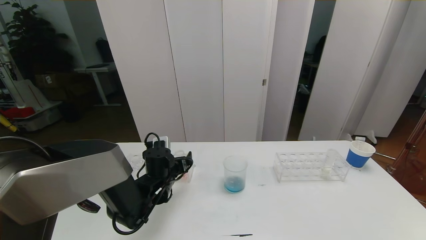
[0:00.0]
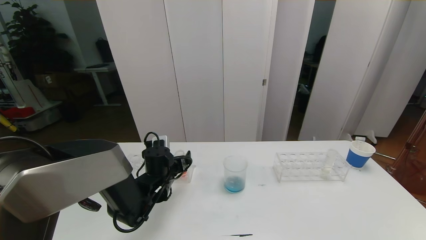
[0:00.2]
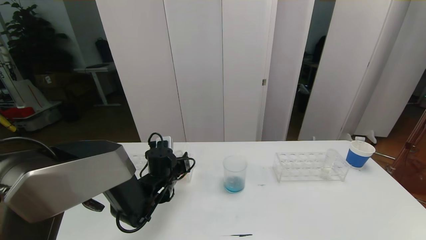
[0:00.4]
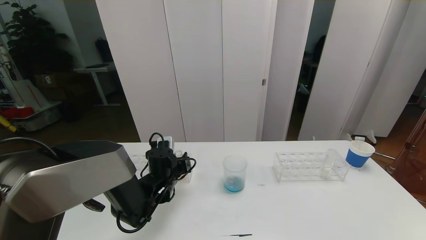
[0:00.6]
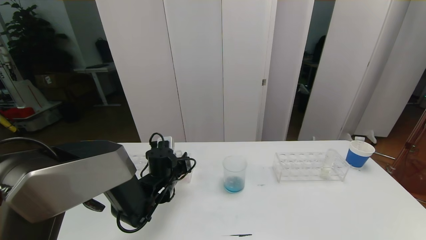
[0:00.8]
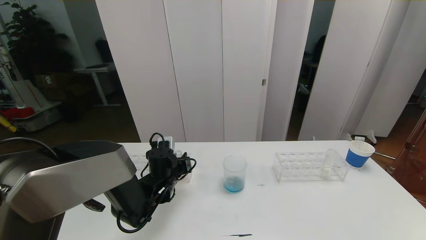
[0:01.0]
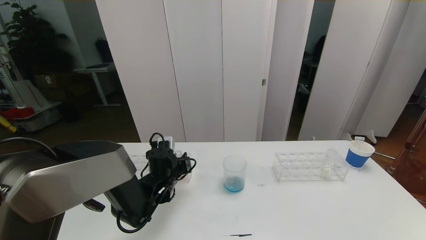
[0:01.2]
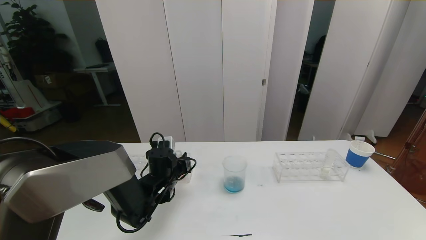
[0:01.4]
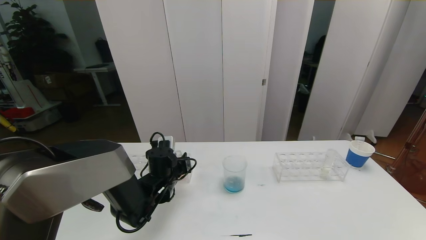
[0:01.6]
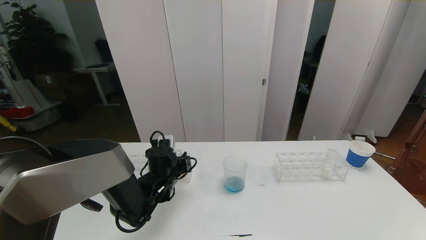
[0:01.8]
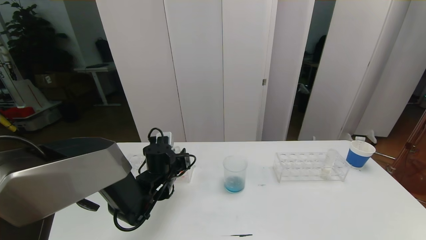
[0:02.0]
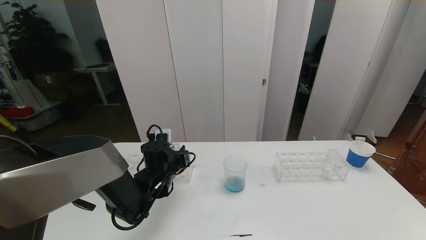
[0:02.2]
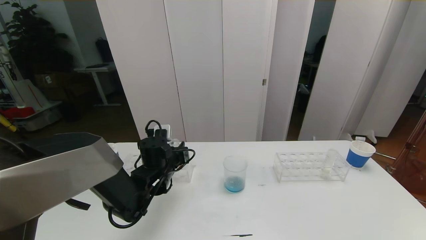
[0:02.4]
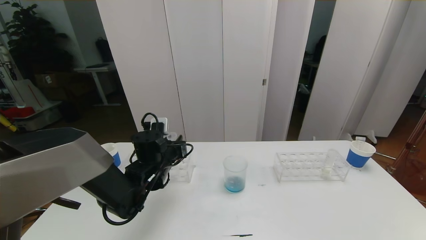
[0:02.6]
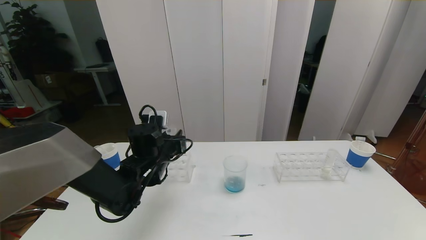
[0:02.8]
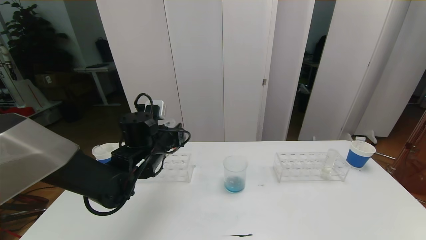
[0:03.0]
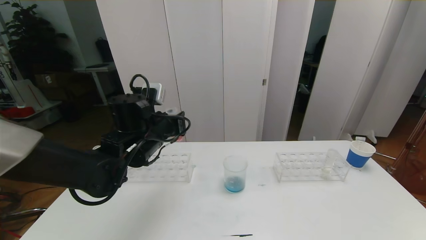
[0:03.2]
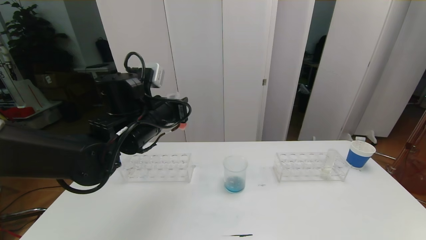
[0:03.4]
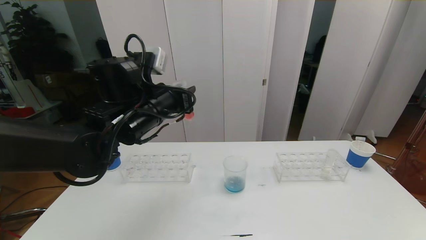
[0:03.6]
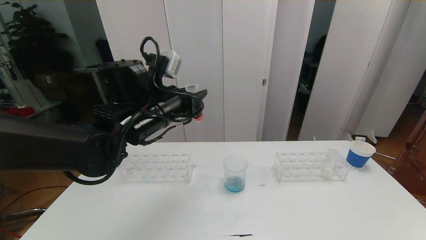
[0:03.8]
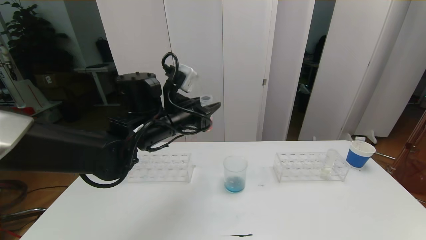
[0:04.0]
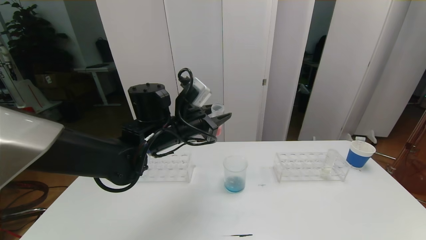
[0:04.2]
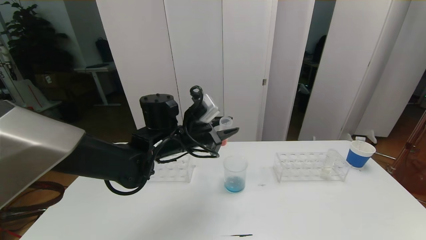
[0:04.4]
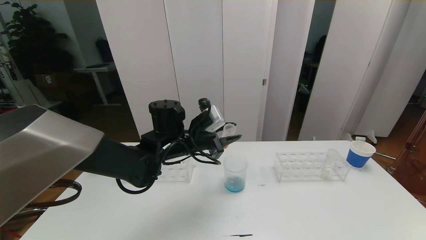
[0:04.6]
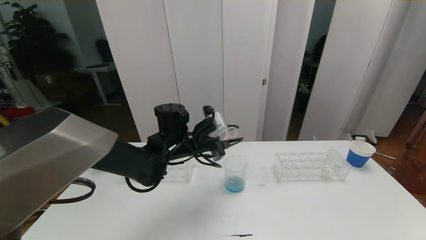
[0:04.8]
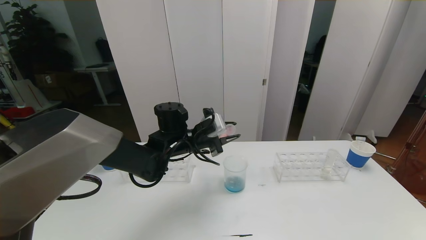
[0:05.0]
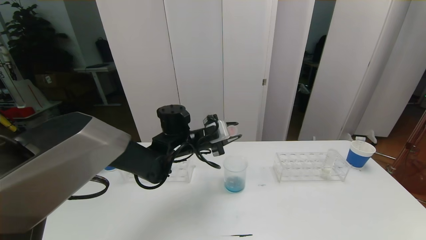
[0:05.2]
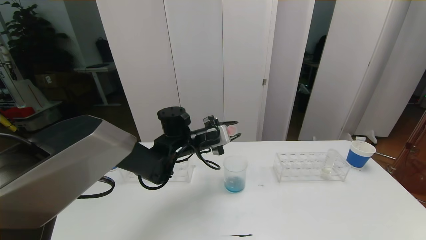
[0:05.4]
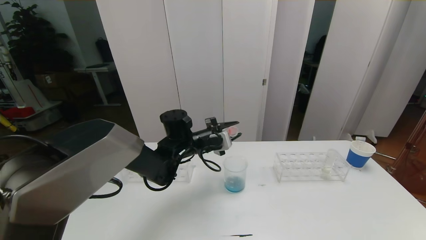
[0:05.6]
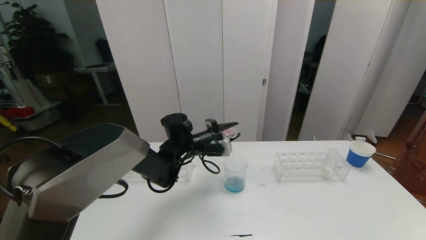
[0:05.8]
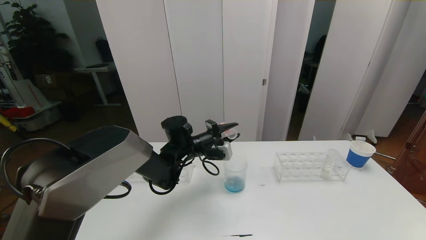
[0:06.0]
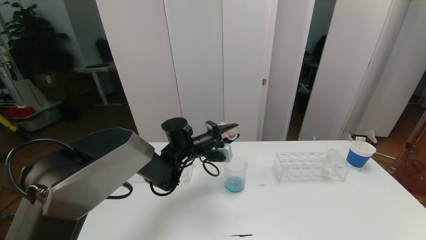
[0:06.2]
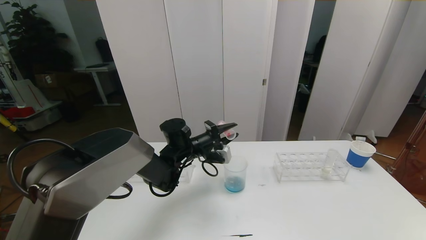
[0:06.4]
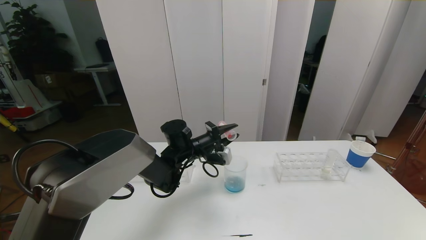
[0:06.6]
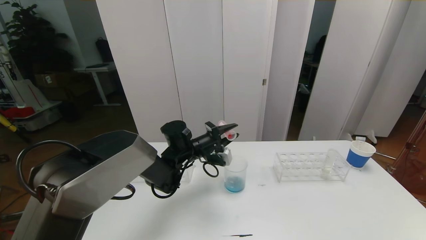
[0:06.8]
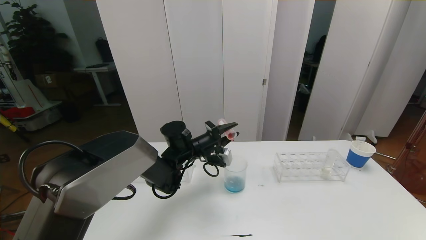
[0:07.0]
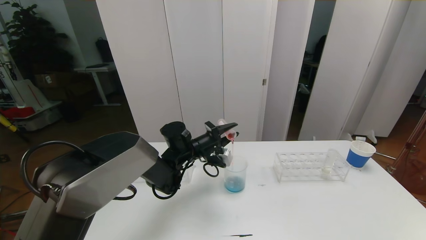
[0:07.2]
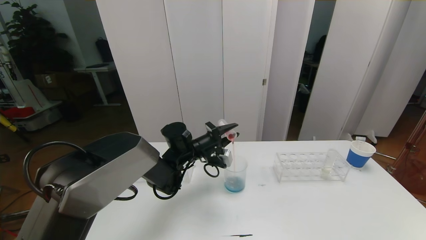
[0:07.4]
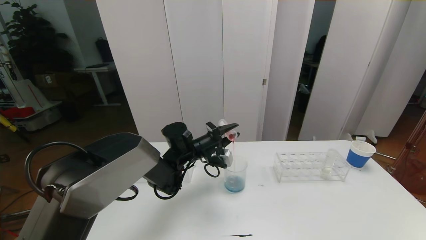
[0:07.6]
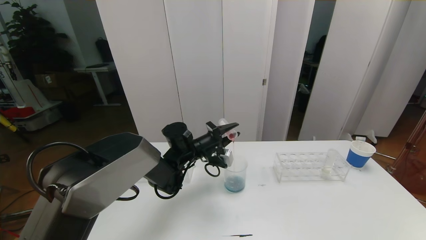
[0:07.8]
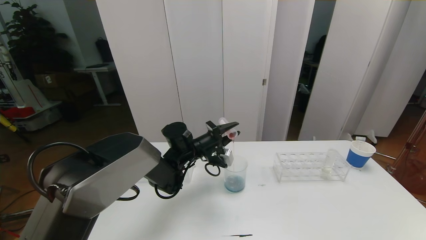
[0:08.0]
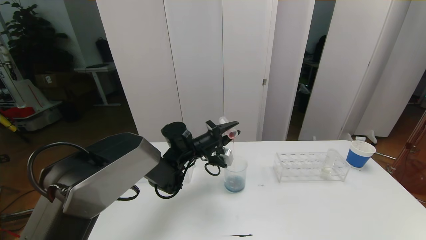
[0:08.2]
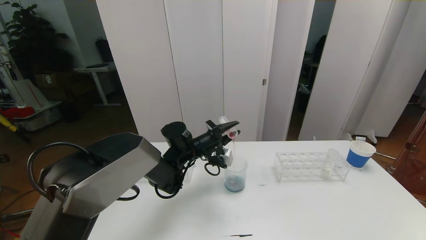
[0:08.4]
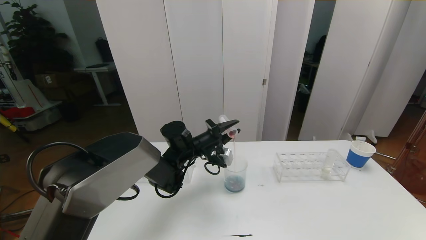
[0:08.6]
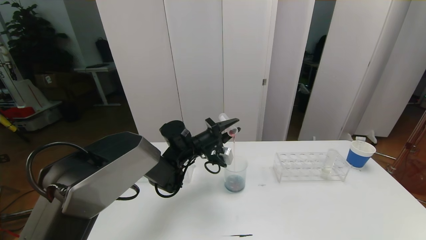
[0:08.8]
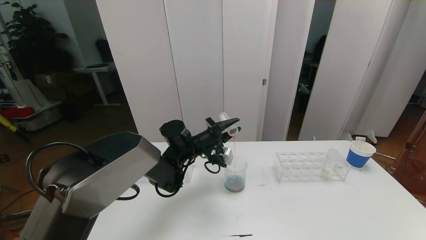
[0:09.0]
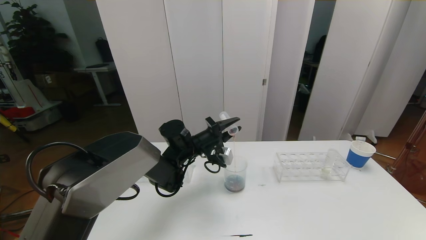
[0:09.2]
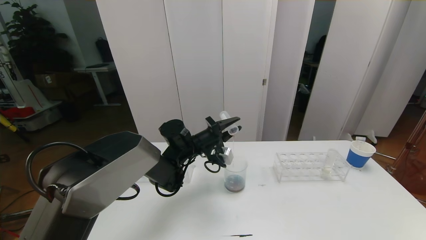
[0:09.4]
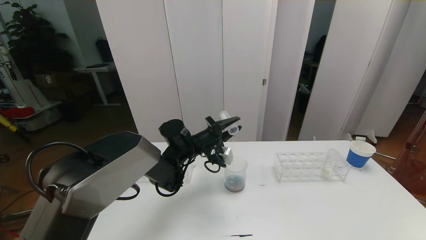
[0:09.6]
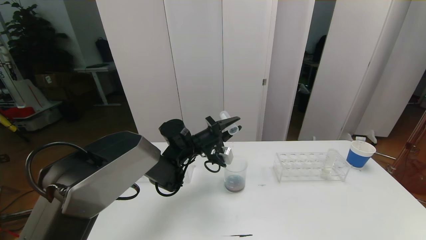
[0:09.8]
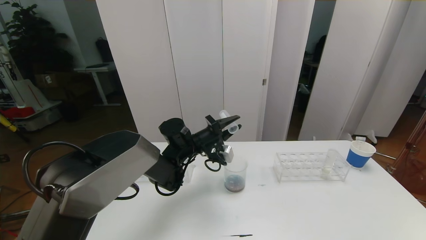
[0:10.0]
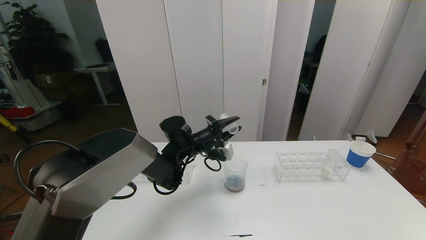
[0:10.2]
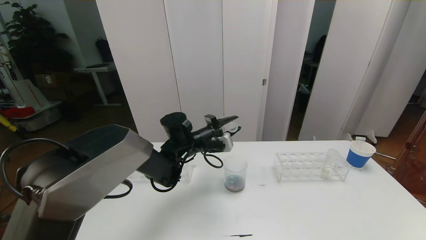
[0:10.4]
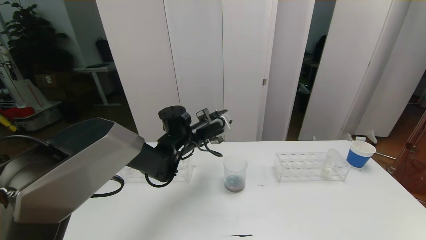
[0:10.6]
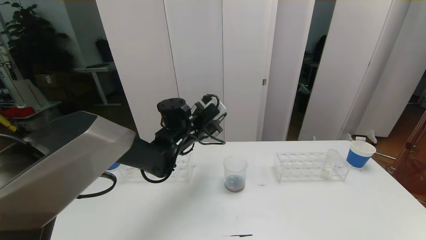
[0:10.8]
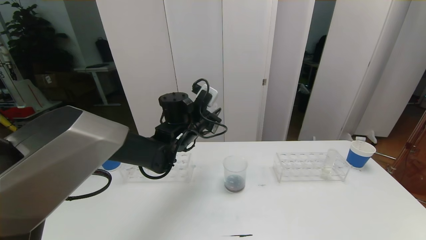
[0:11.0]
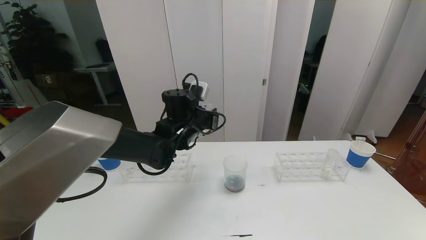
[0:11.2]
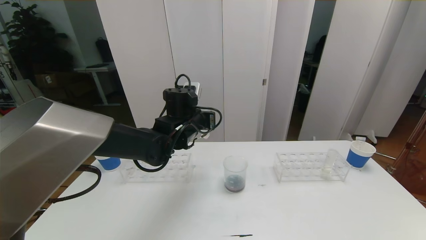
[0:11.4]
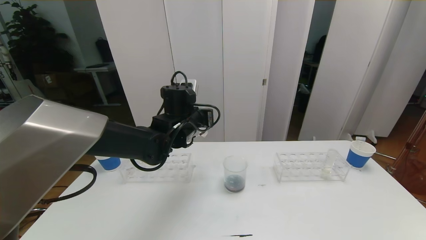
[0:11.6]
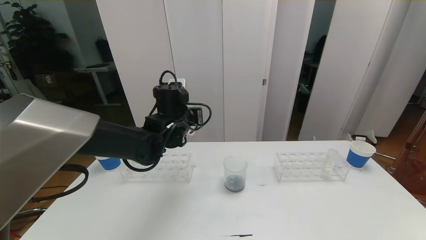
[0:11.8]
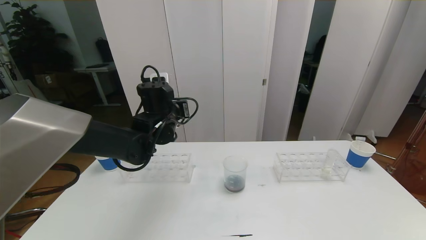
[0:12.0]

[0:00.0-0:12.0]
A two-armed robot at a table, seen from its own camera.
Task of the whole recording: pick up the test tube with red pigment the test tube with blue pigment and the test tube with white pigment by grippers and pour them into the beaker.
0:00.0 to 0:01.6: The left gripper closes up.
0:01.6 to 0:03.0: The left gripper goes some 10 cm upward.
0:03.0 to 0:04.4: The left gripper shifts about 5 cm to the right, and travels upward and back again, about 10 cm each way.
0:04.4 to 0:06.0: The left gripper heads downward and forward, covering some 10 cm.
0:06.0 to 0:09.0: The grippers stay close to where they were, moving slightly.
0:10.4 to 0:12.0: The left gripper goes approximately 10 cm upward and to the left.

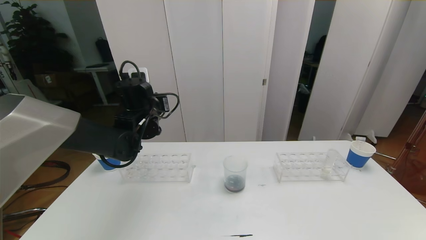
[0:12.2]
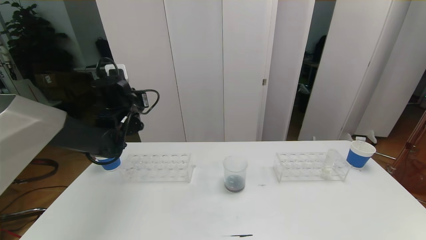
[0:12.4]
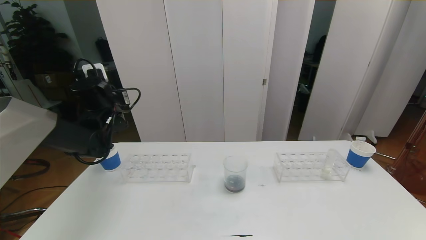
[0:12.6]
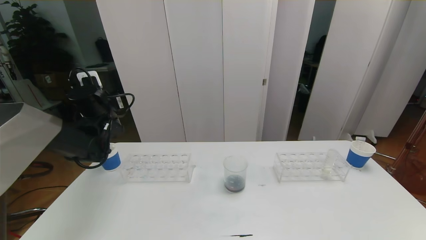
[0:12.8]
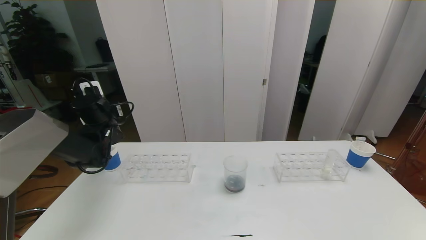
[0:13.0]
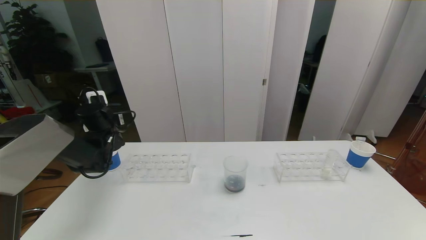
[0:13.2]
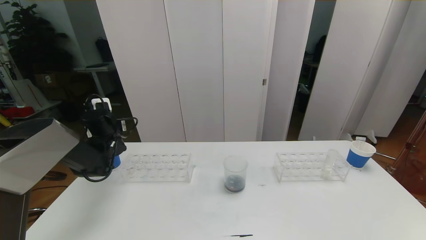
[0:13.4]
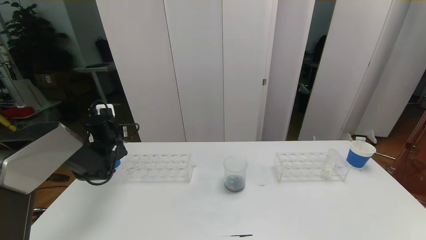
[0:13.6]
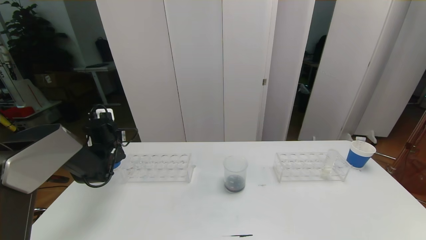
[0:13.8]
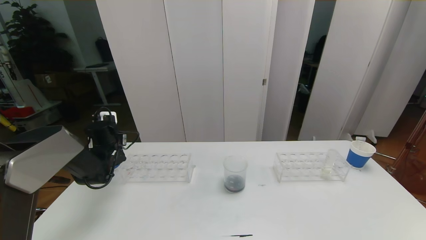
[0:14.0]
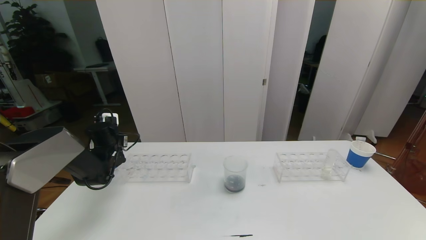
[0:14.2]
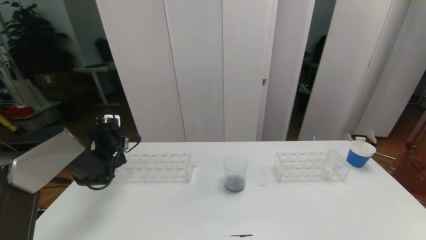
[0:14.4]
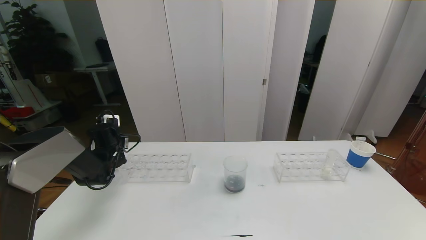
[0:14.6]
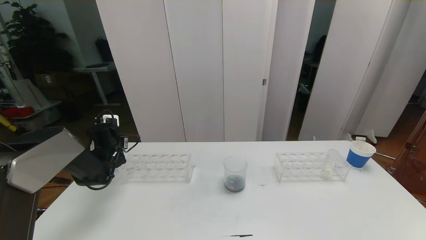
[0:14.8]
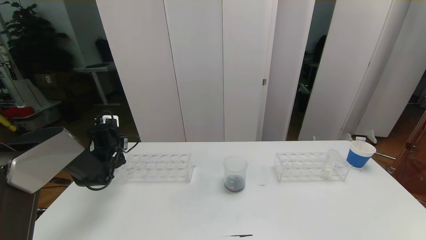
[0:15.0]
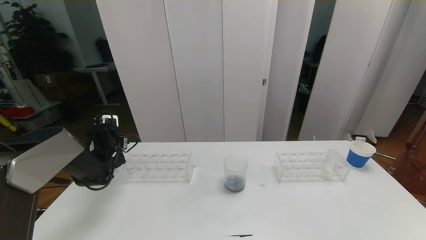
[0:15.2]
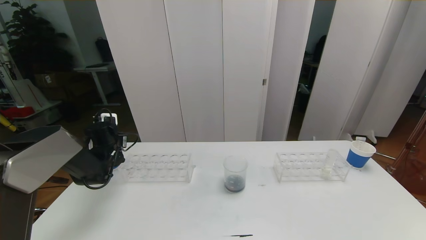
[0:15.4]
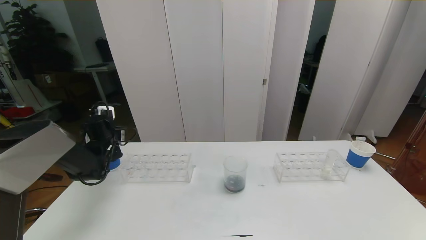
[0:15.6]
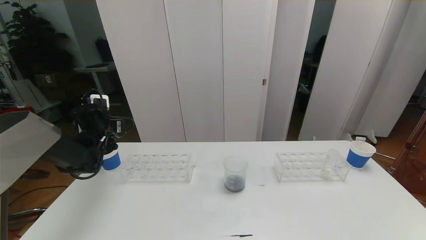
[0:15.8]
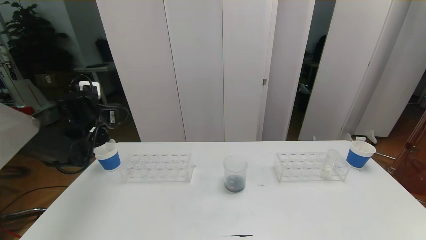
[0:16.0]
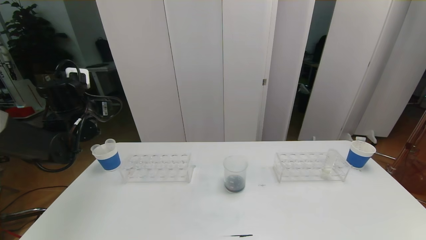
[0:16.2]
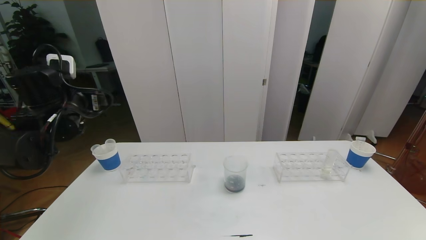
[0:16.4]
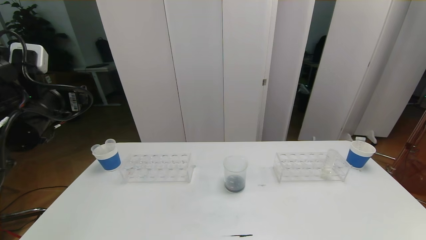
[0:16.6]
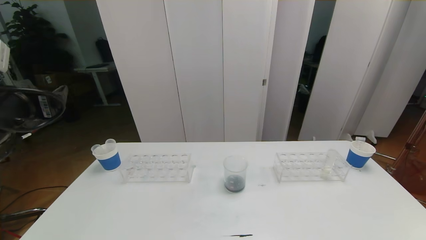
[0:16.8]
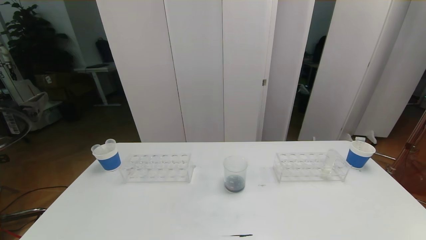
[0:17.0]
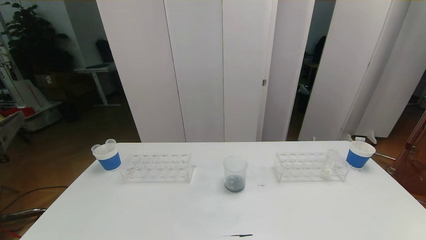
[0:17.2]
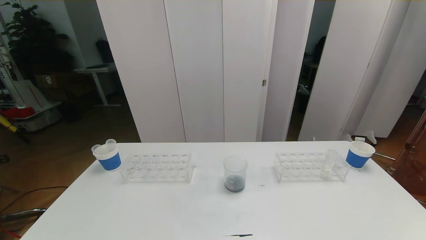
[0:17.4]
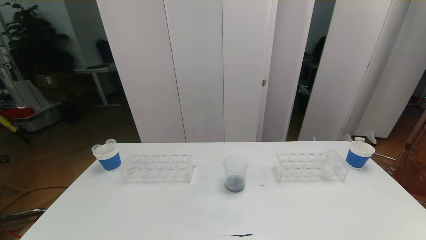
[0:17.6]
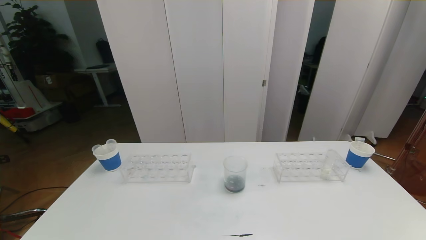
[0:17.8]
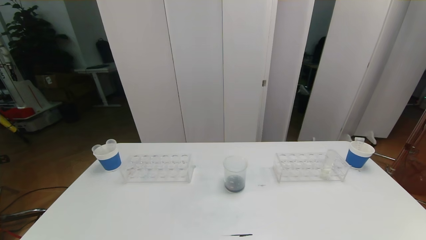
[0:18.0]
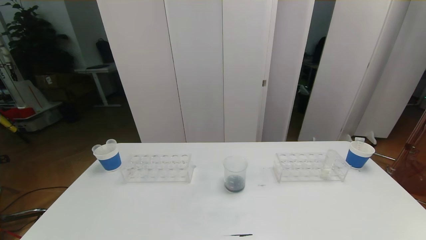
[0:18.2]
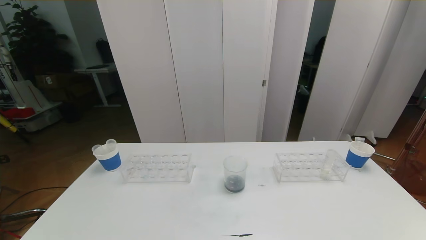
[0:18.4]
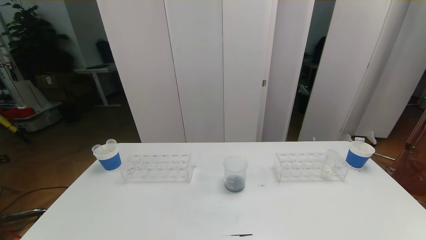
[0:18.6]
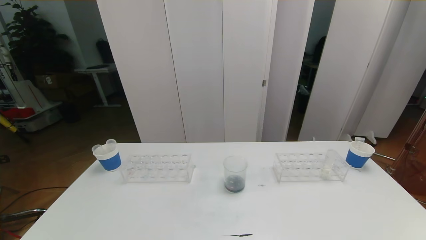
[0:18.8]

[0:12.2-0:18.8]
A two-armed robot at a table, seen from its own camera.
Task of the whole recording: pick up the test tube with red pigment the test tube with blue pigment and the test tube with white pigment by grippers and pour them into the beaker.
Step, 0:12.2 to 0:18.0: Pour the orange reagent into the graduated cylinder and place the test tube into the paper cup.
0:12.2 to 0:13.8: The left gripper is displaced to the left and downward by about 20 cm.
0:13.8 to 0:15.4: The left gripper opens its fingers.
0:15.4 to 0:17.2: The left gripper goes some 40 cm backward and upward.
